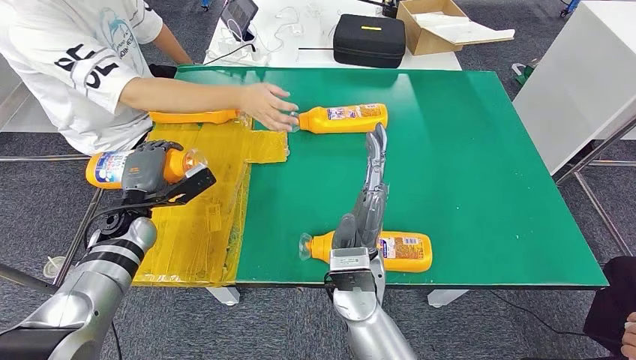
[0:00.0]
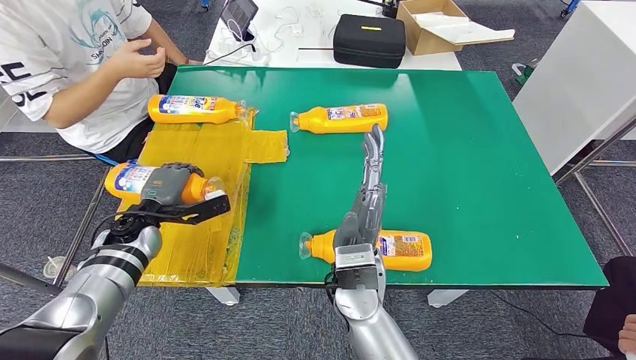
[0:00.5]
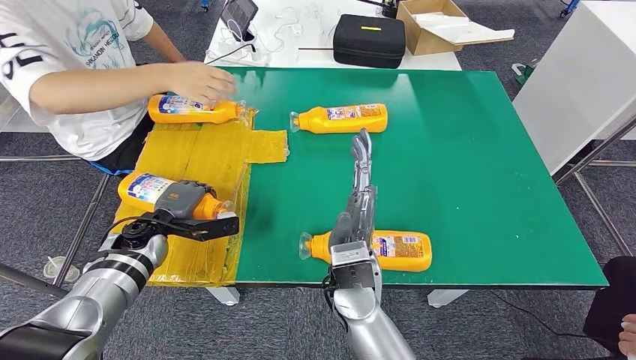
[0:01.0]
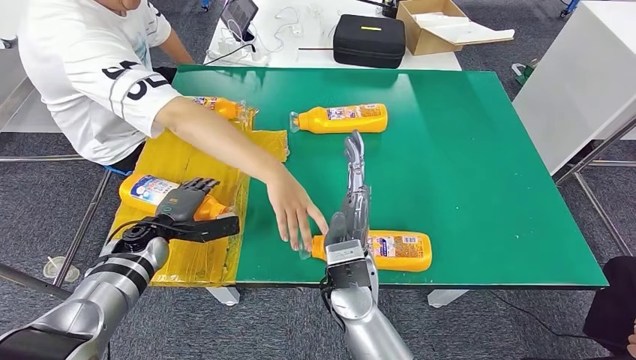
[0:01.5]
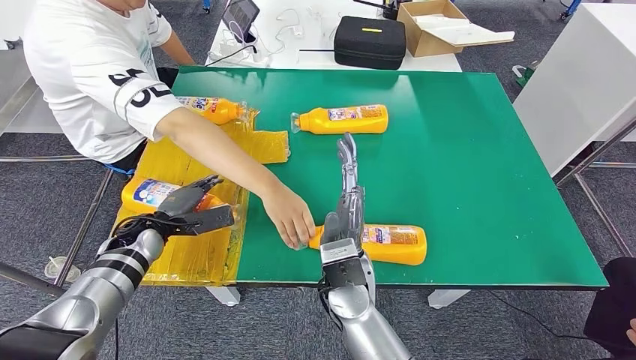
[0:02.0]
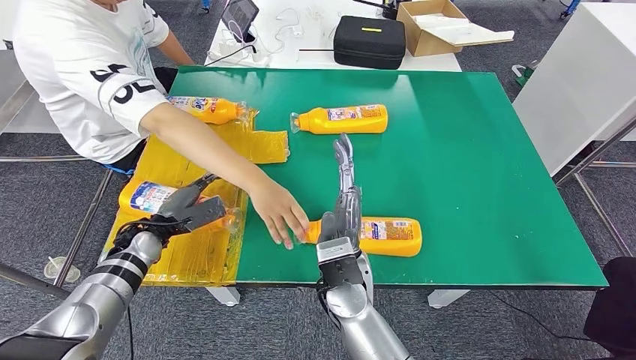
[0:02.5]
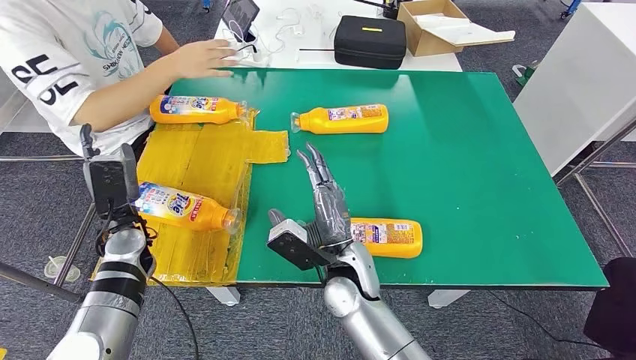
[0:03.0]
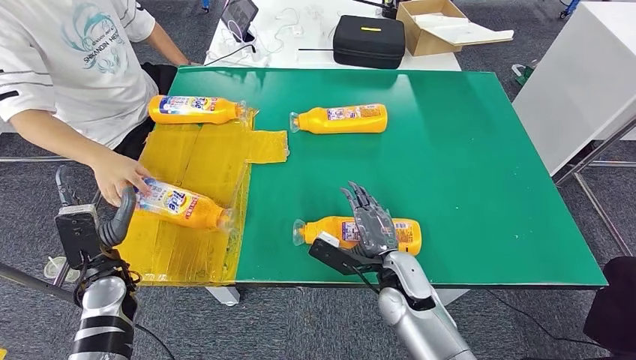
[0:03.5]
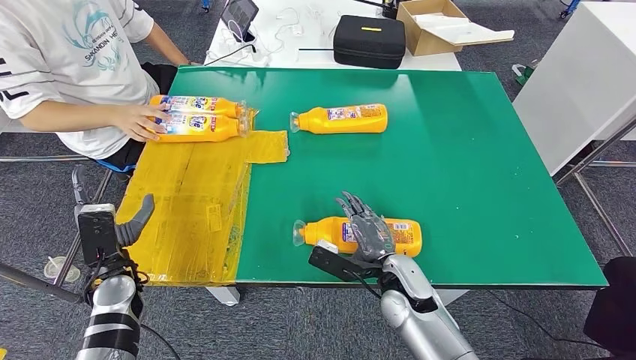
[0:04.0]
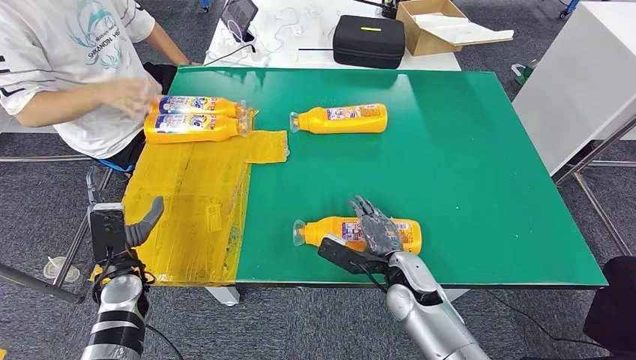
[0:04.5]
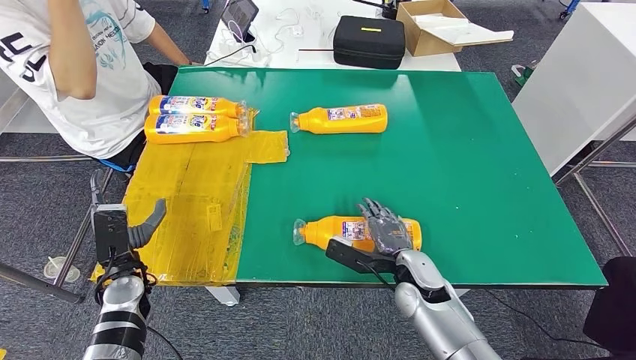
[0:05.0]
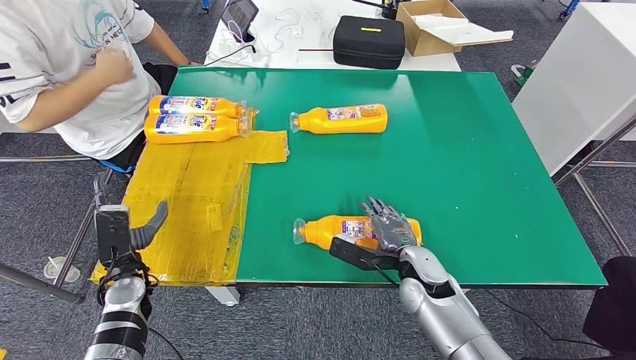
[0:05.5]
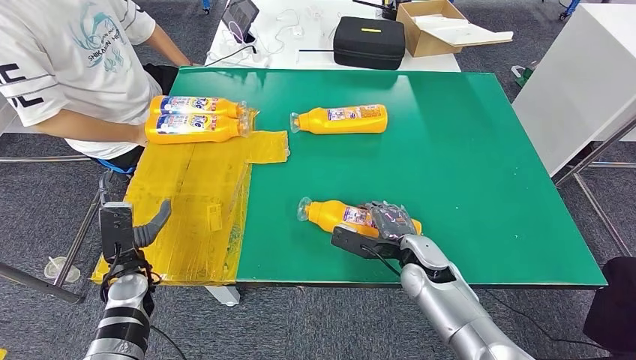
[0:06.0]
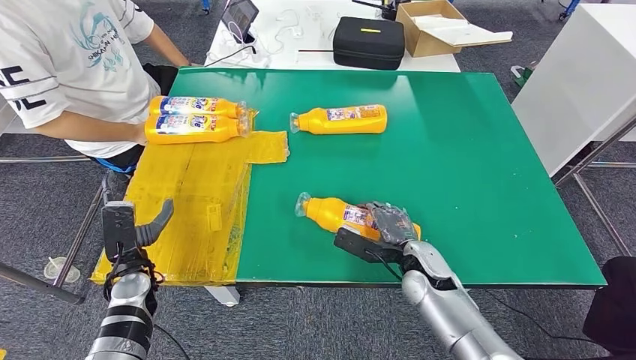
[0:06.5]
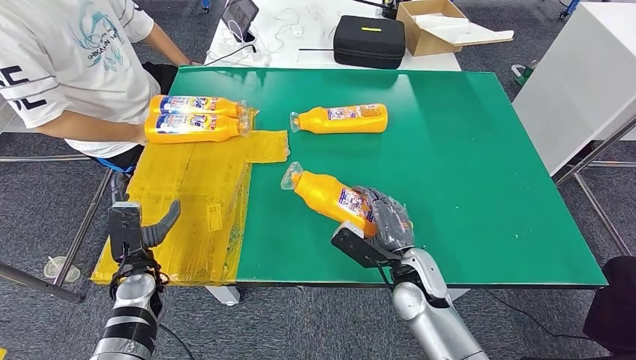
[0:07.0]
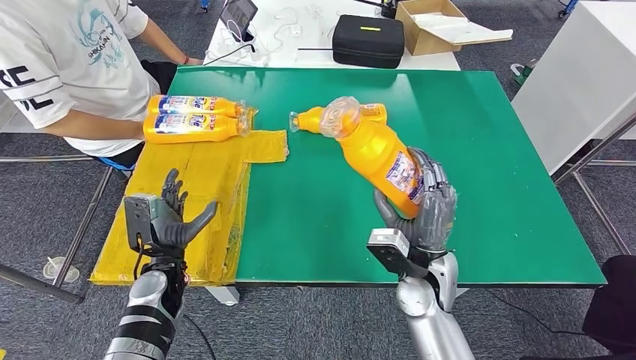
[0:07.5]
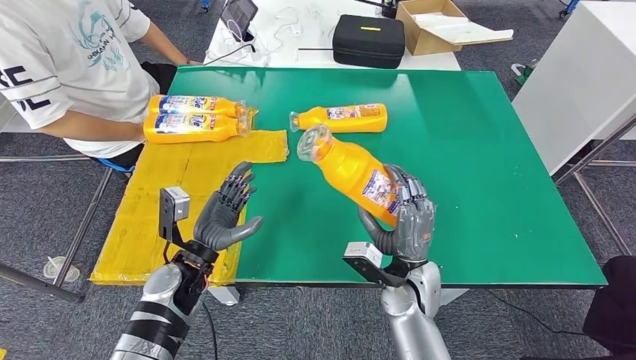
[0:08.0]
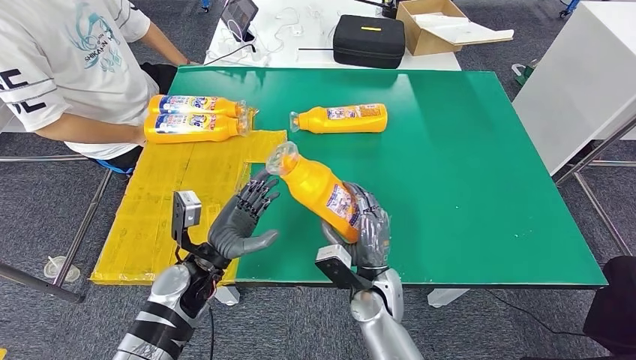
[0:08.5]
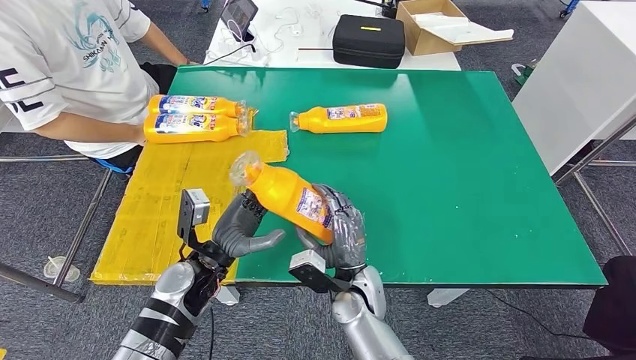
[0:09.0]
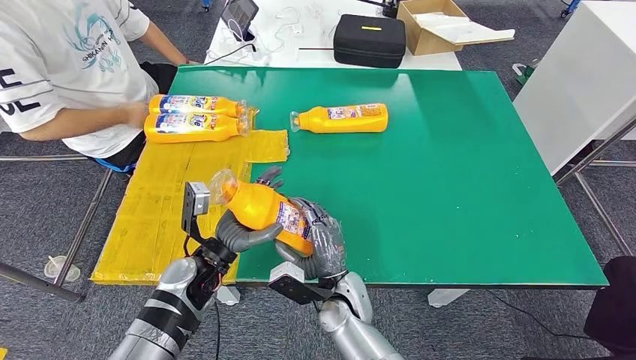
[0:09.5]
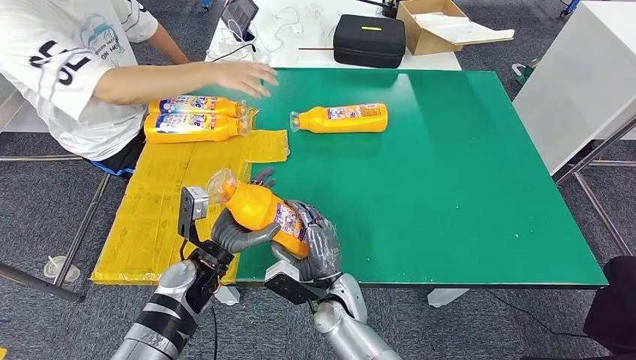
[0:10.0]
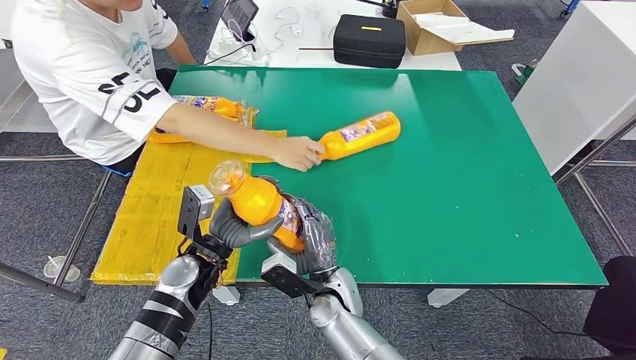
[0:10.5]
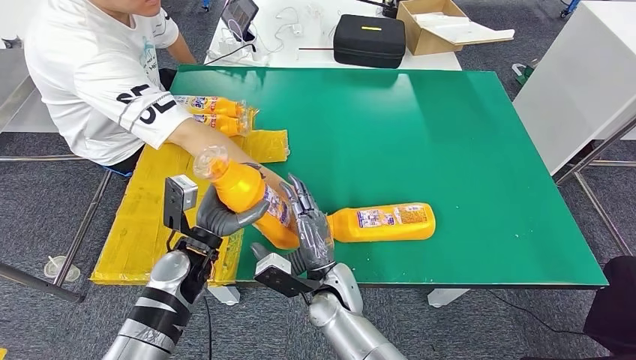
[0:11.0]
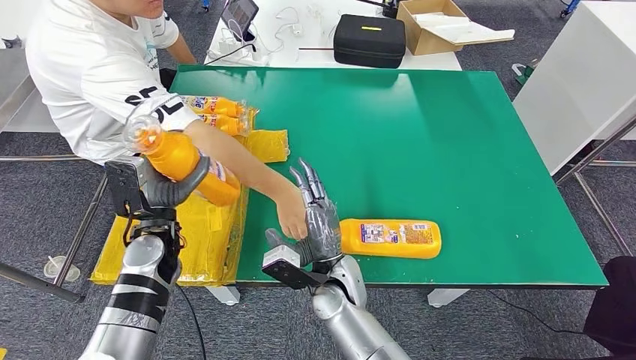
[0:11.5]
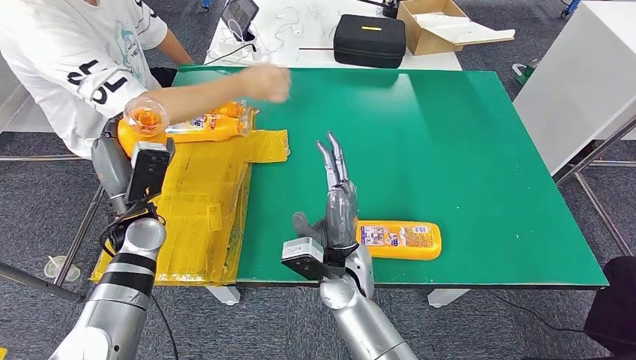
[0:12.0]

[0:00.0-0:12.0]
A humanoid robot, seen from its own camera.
Step, 0:00.0 to 0:03.5: Flip the fast-moving consumer goods bottle to the front side.
Step, 0:04.5 to 0:10.5: Pick up the fast-moving consumer goods bottle from the table.
0:04.0 to 0:06.0: The right hand goes roughly 5 cm to the right.

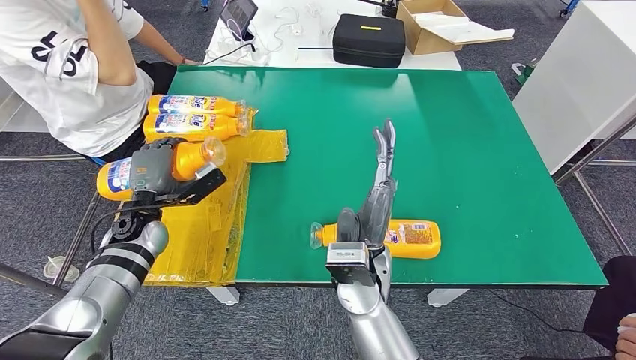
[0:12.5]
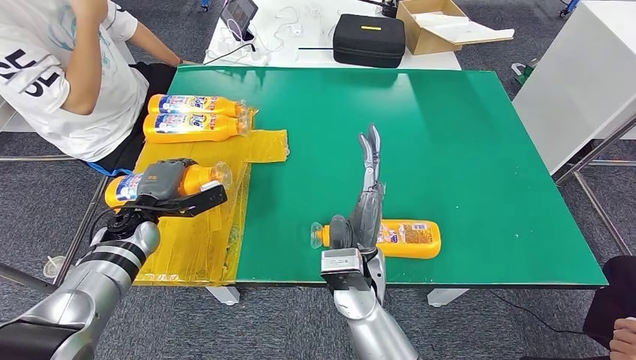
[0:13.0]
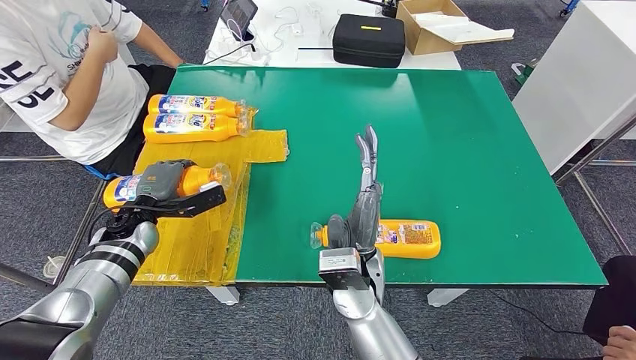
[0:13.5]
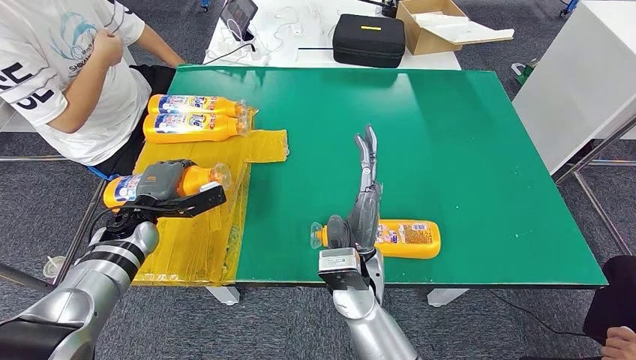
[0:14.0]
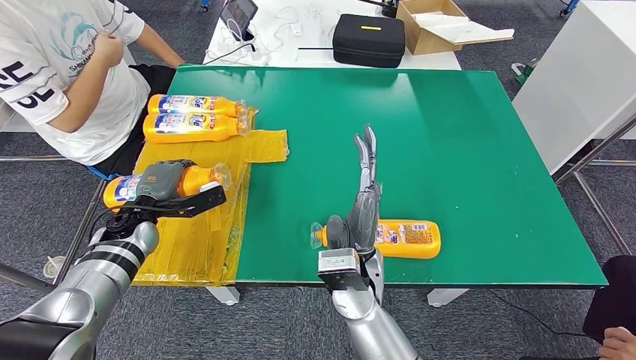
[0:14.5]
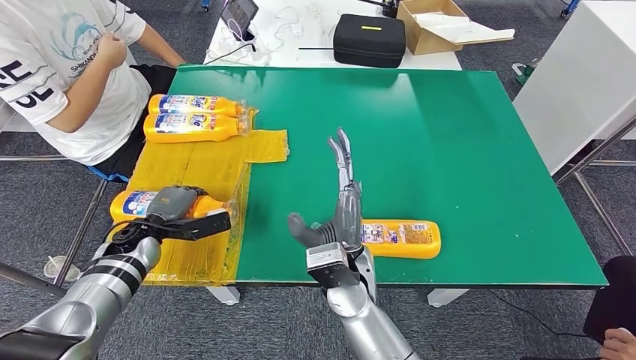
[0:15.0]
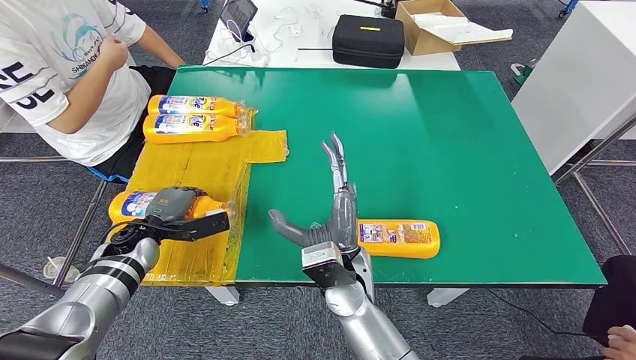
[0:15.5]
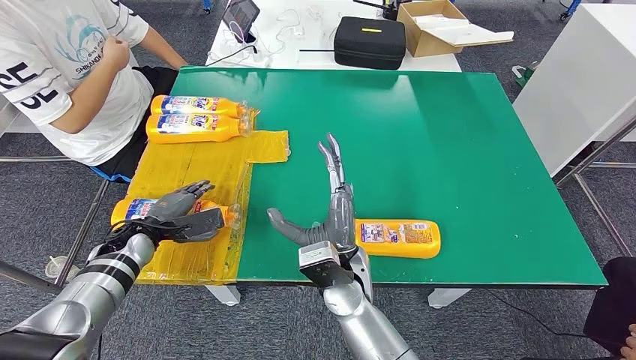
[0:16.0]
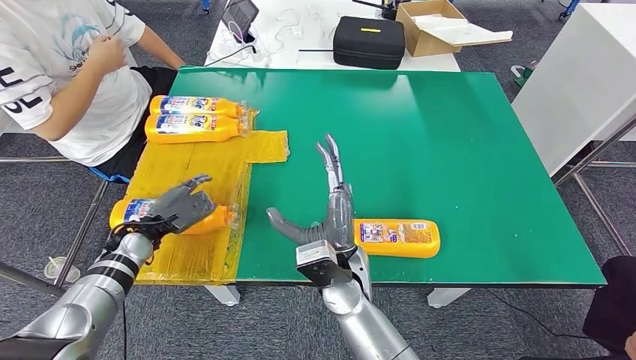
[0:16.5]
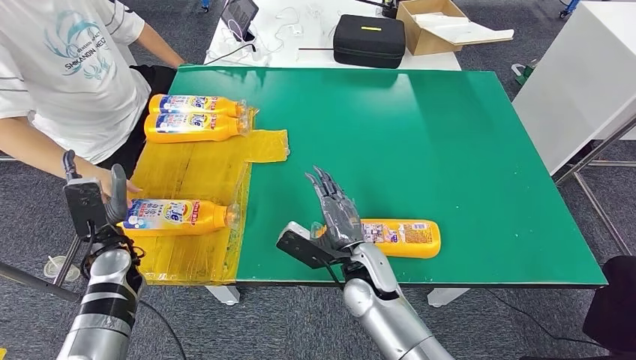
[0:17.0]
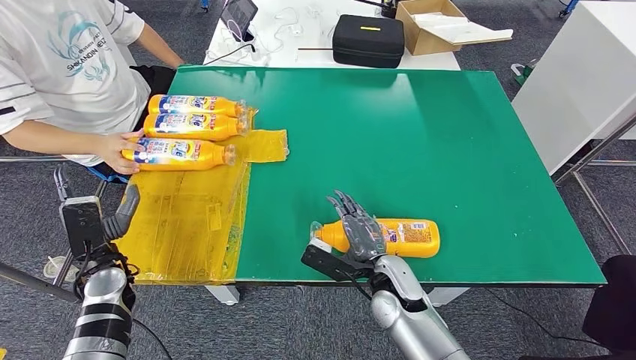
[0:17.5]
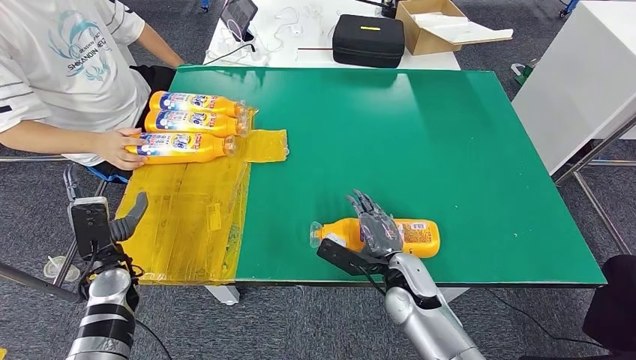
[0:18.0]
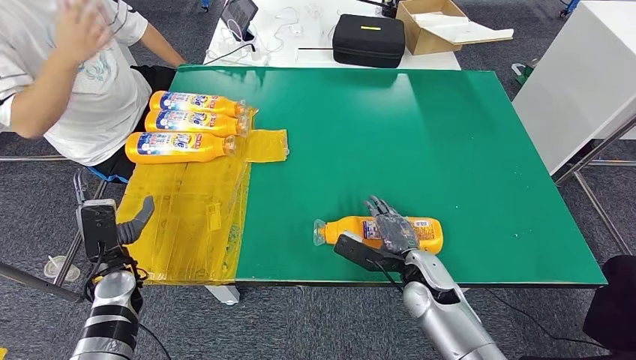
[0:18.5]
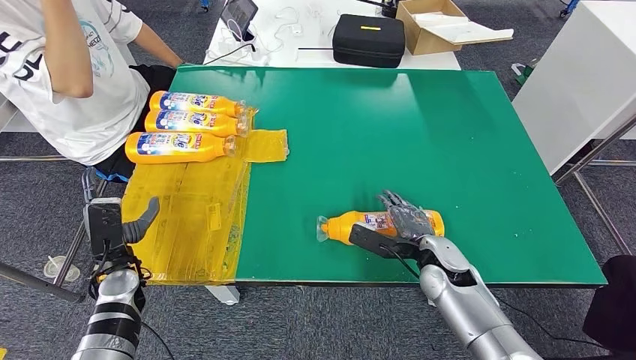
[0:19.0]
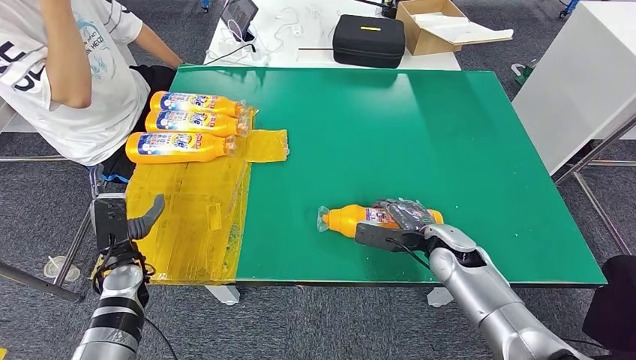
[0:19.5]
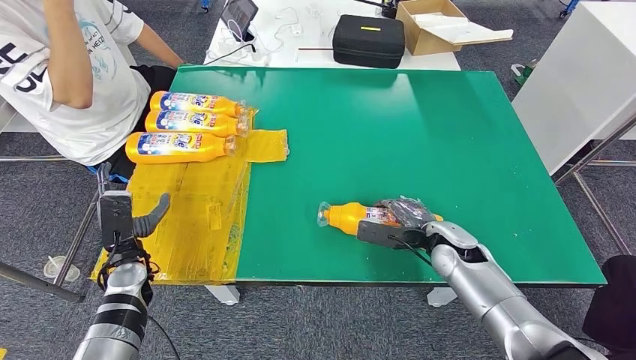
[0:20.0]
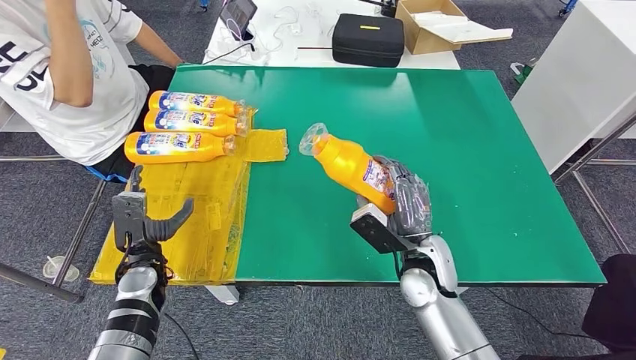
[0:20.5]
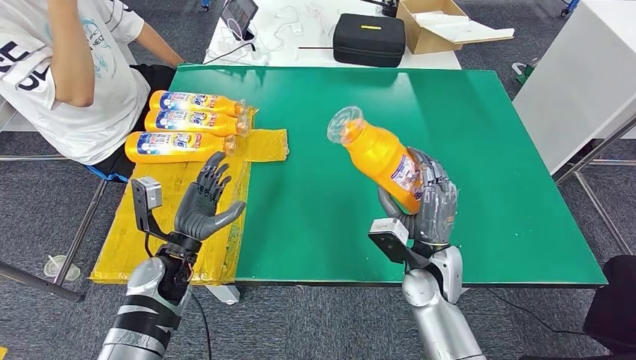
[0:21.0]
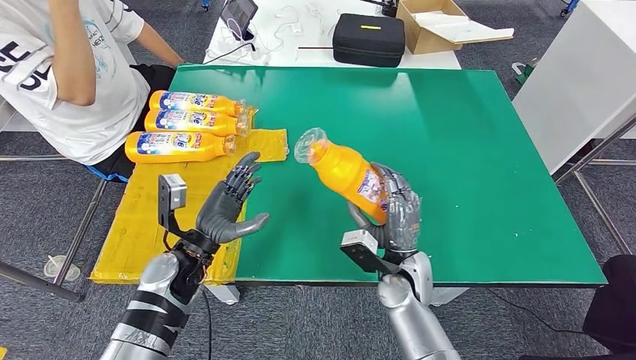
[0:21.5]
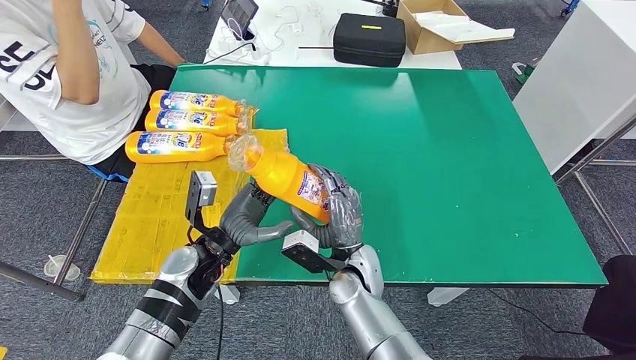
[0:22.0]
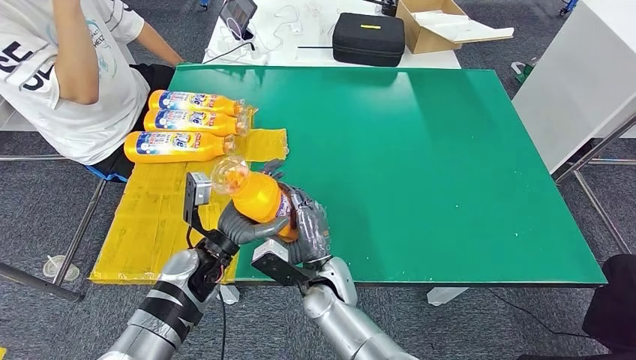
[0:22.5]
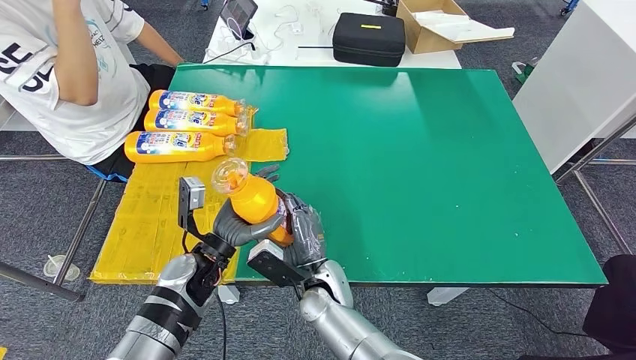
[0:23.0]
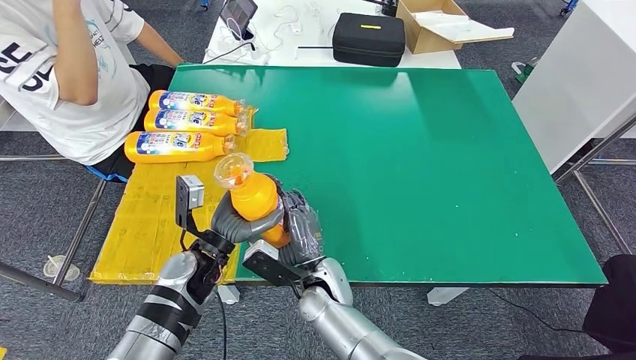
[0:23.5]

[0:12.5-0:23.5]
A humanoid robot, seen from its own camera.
Step, 0:12.5 to 0:18.0: Flip the fast-moving consumer goods bottle to the front side.
0:12.5 to 0:14.5: The hands make only small movements.
0:18.0 to 0:20.0: The right hand goes some 10 cm to the right and forward.
0:21.5 to 0:23.5: The right hand travels to the left by approximately 15 cm.
